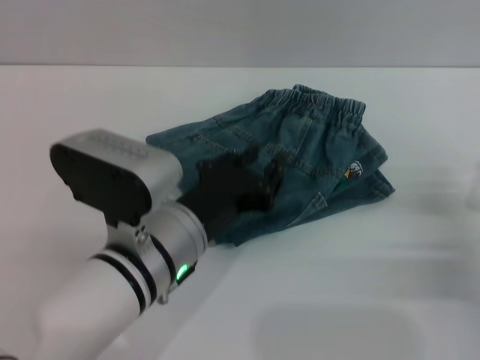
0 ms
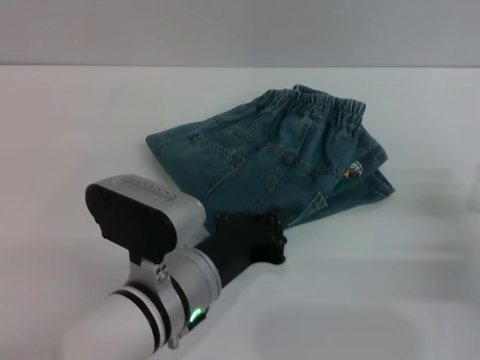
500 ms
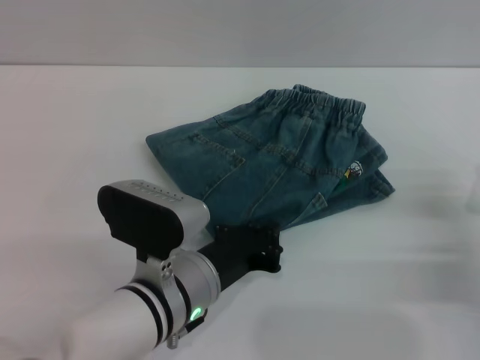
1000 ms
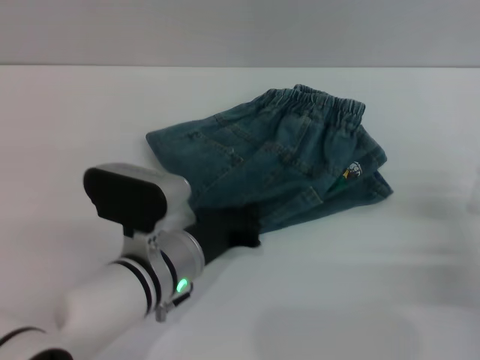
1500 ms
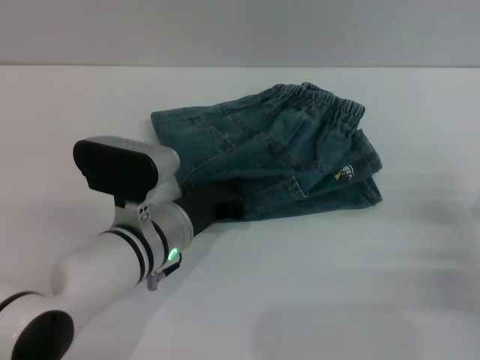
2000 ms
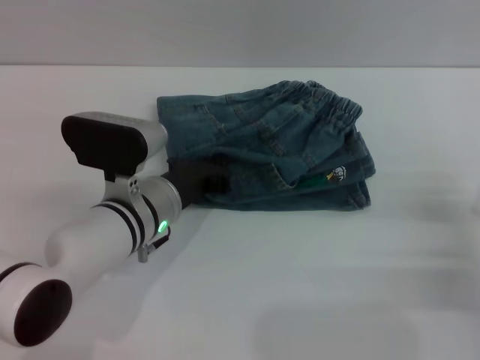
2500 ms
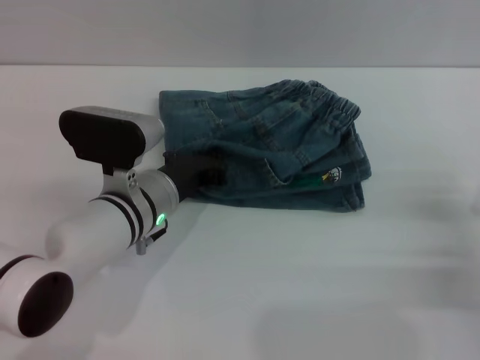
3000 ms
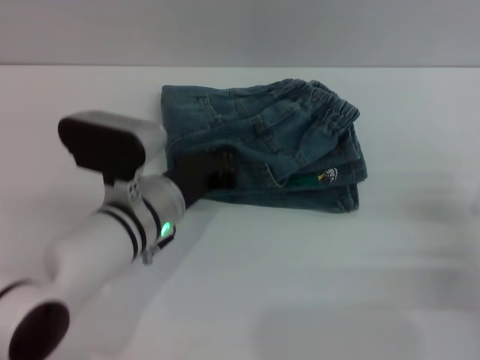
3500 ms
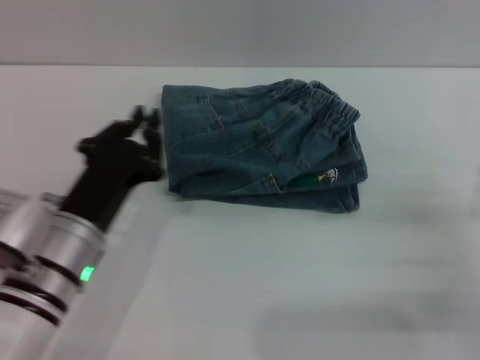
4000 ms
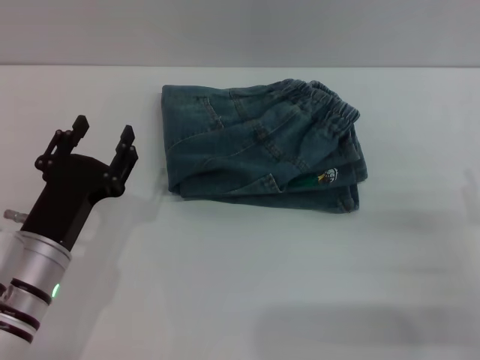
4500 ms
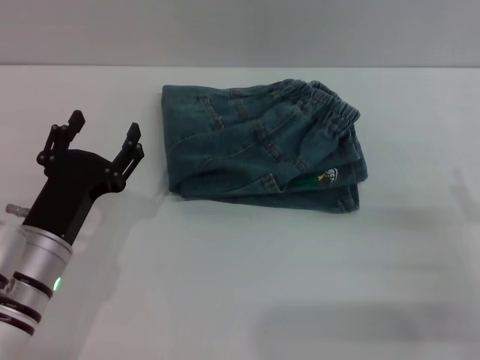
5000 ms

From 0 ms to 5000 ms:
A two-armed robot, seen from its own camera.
Step, from 0 ms to 3000 ms: Place the folded trousers onto the center area with the left grippers.
From 0 ms to 2500 ms: The left gripper moves forward, some 10 cm, and closes.
From 2500 ms to 5000 ms: The right gripper opens its fingers; the left gripper shifts some 10 cm to the left and backward, and opens its fingers.

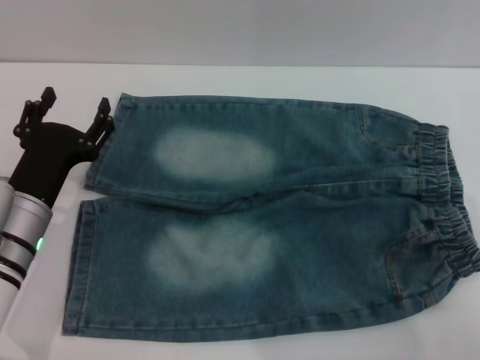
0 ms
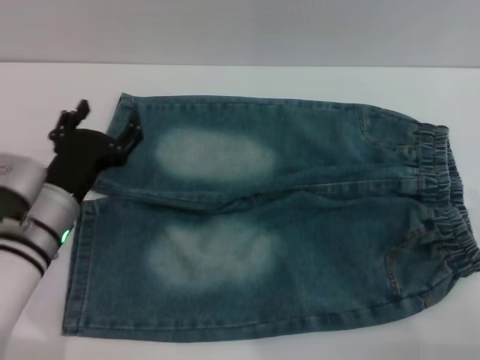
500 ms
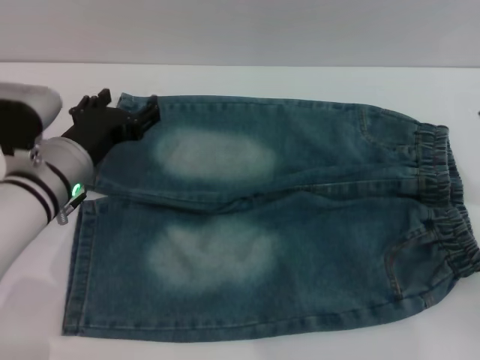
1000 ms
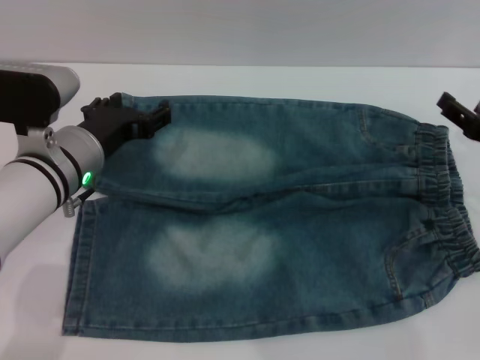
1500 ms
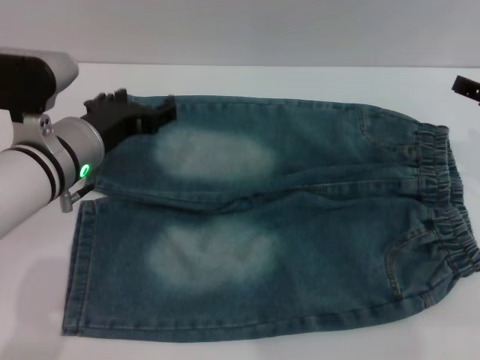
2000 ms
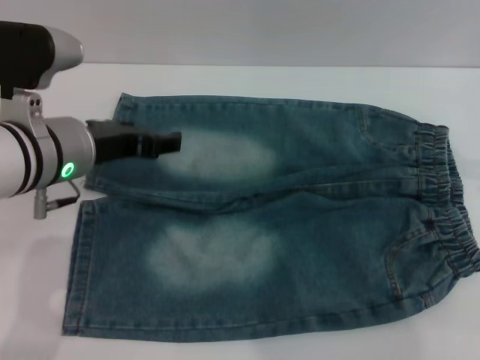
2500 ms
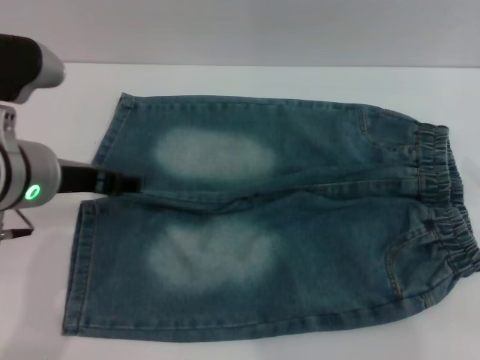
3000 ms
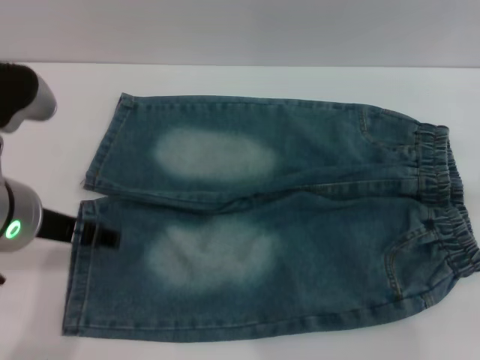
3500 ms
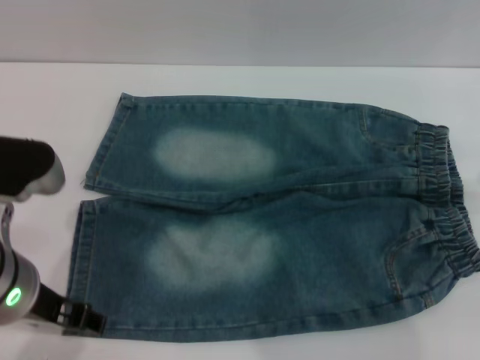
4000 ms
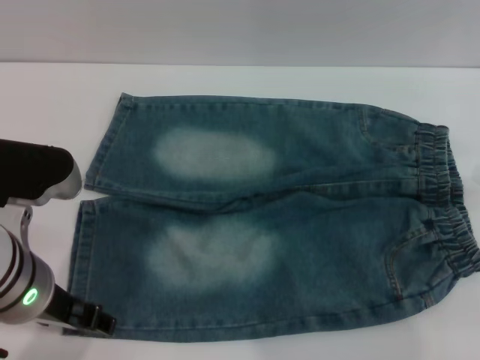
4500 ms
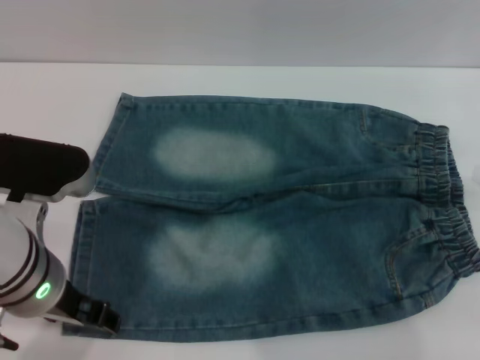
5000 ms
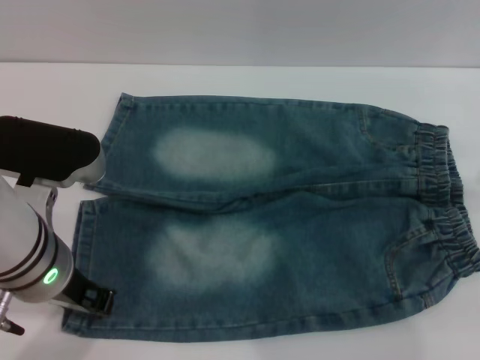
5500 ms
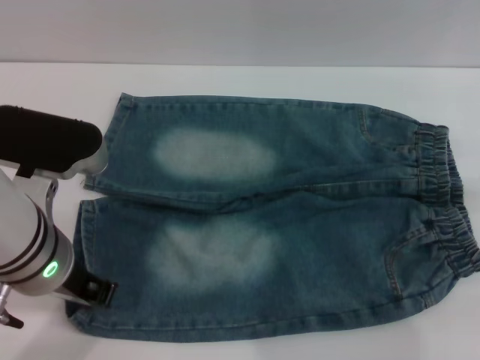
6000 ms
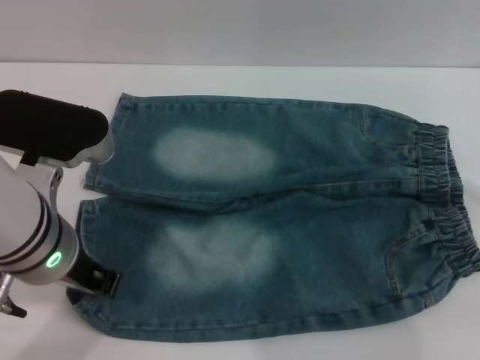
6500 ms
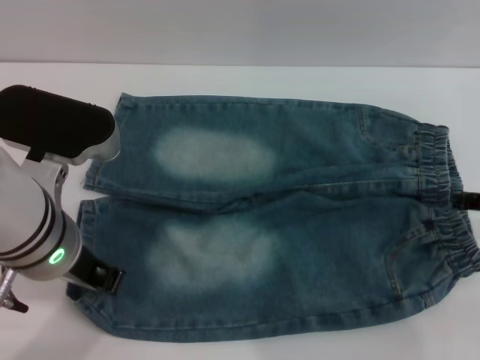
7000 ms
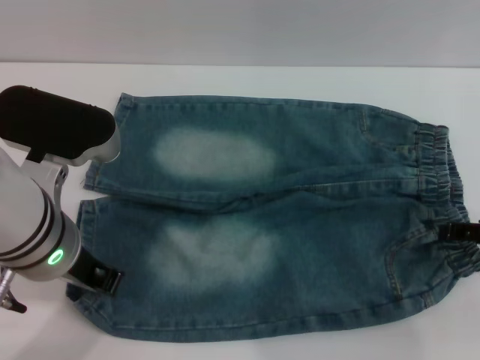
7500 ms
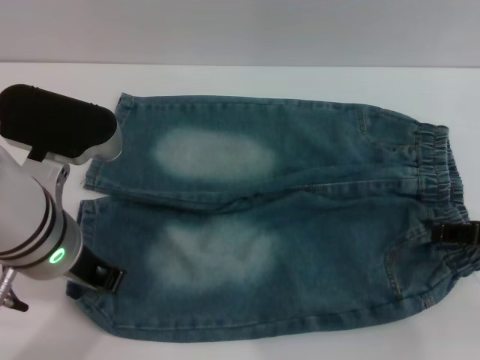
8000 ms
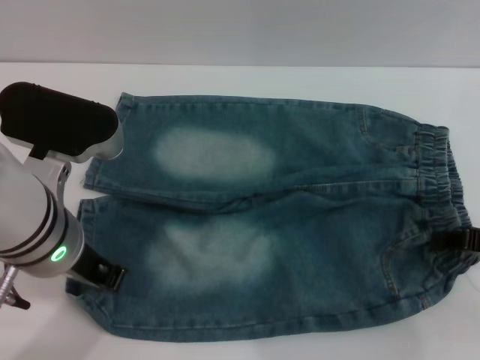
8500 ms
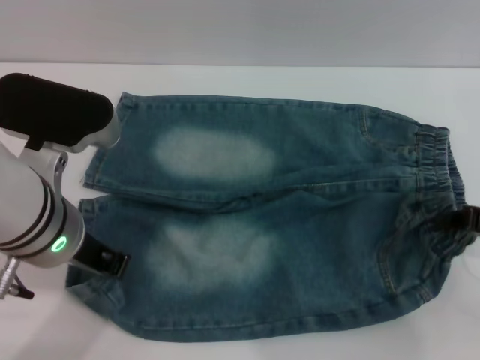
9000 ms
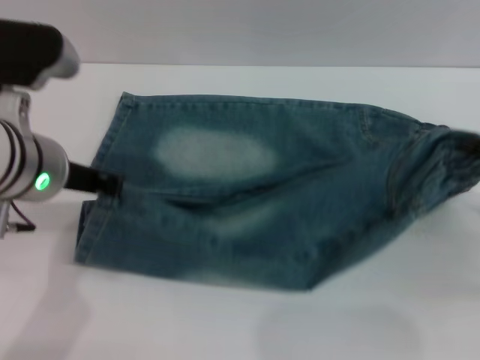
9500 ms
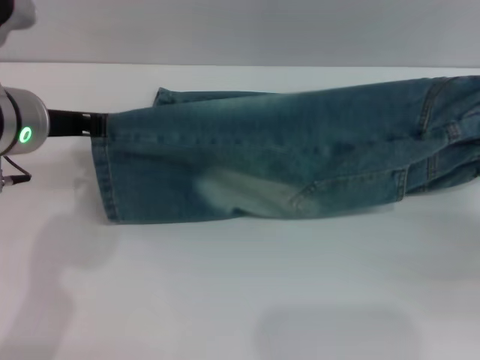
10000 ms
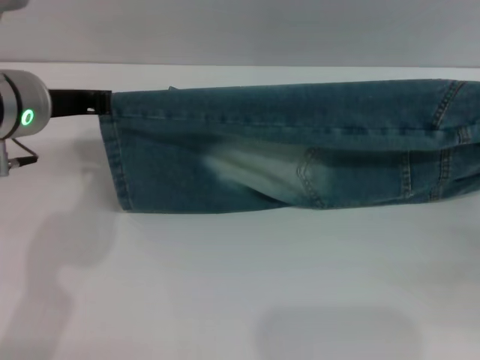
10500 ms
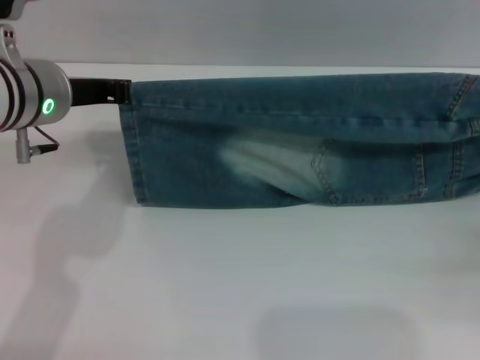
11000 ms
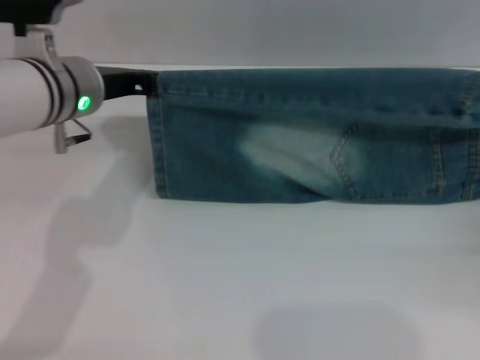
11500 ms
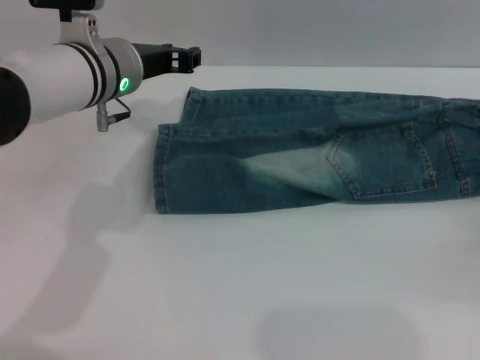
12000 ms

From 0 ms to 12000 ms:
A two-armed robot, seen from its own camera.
From 0 ms to 2000 ms: The left gripper shifts some 10 cm upward and forward.
From 2000 ms to 4000 ms: The left gripper moves backward, some 10 cm.
From 4000 ms to 6000 ms: The left gripper closes its fingers.
From 6000 ms to 8000 ms: The right gripper goes approximately 5 cm downward.
From 8000 ms to 10000 ms: The right gripper is displaced to the right by approximately 5 cm, and closes. The left gripper travels forward by approximately 5 cm.
From 10000 ms to 12000 ms: The left gripper heads forward and to the right, covering approximately 10 cm.

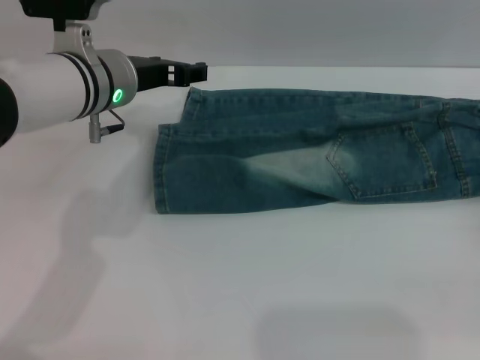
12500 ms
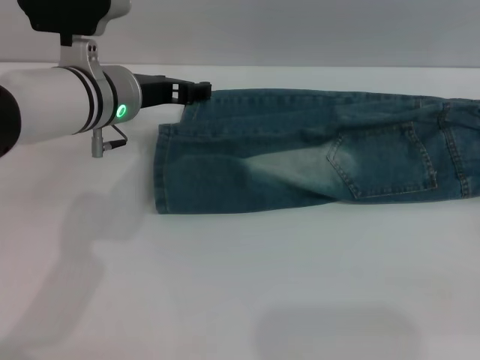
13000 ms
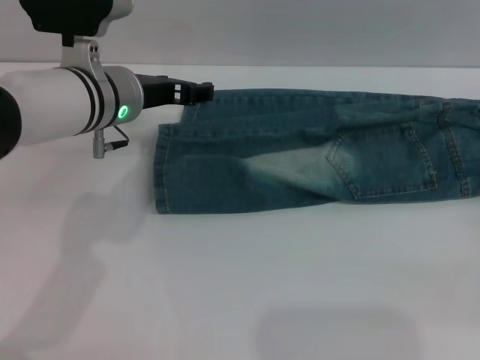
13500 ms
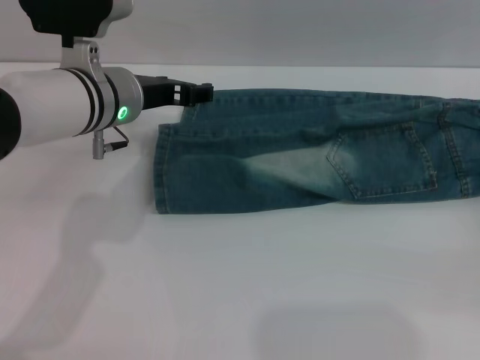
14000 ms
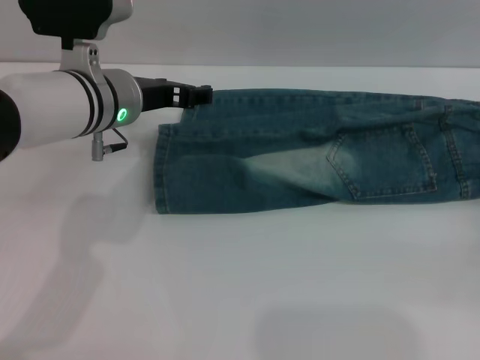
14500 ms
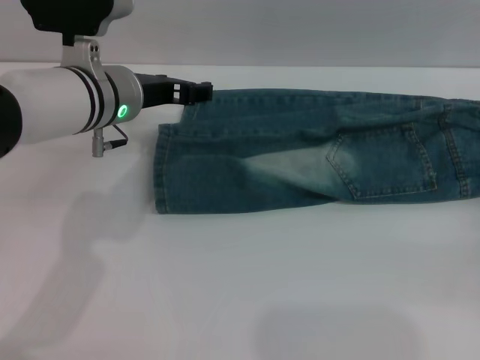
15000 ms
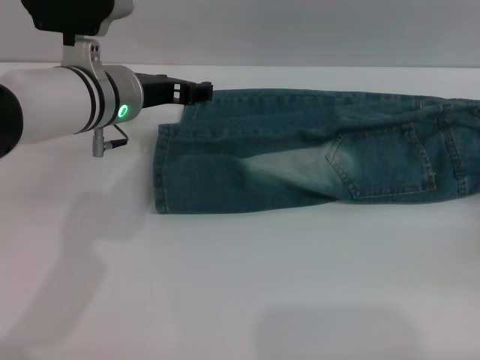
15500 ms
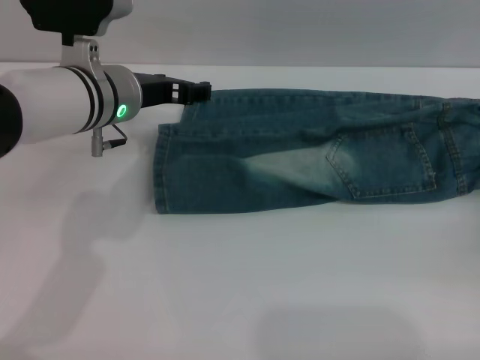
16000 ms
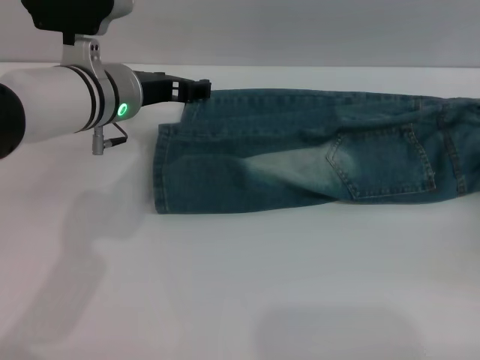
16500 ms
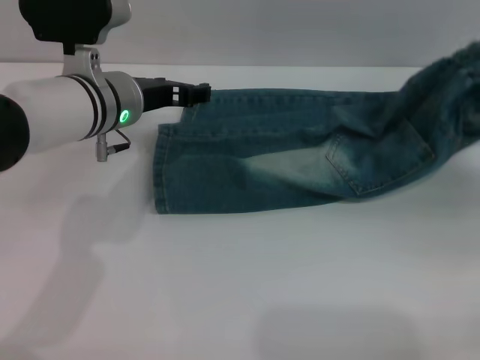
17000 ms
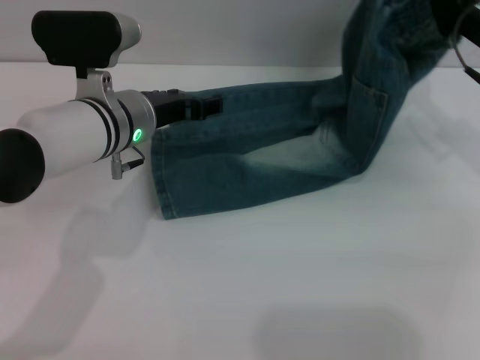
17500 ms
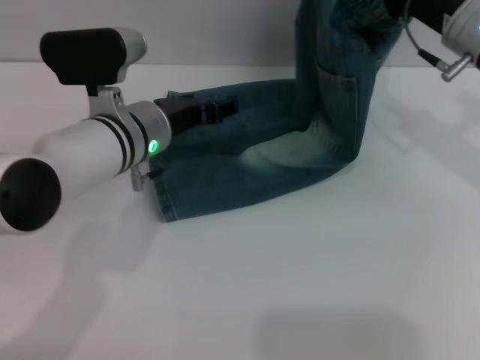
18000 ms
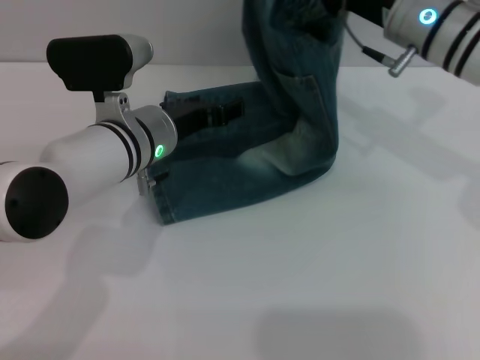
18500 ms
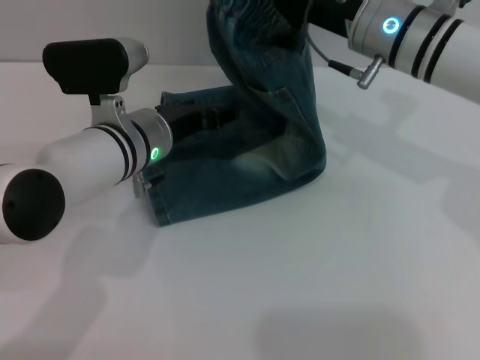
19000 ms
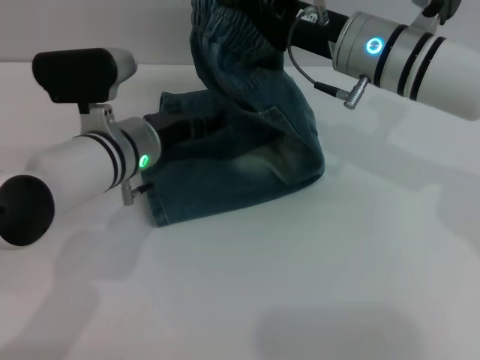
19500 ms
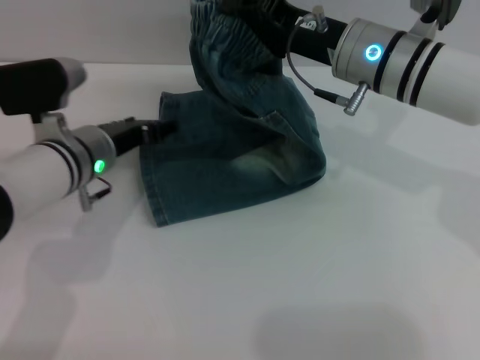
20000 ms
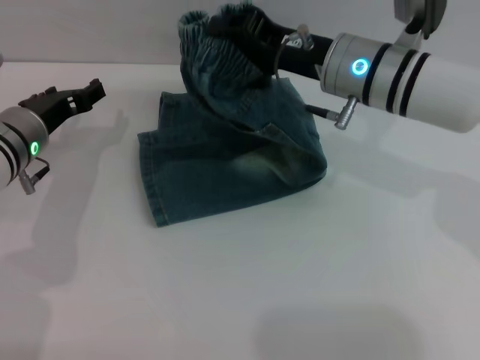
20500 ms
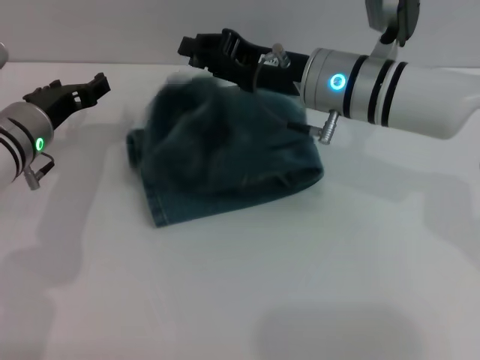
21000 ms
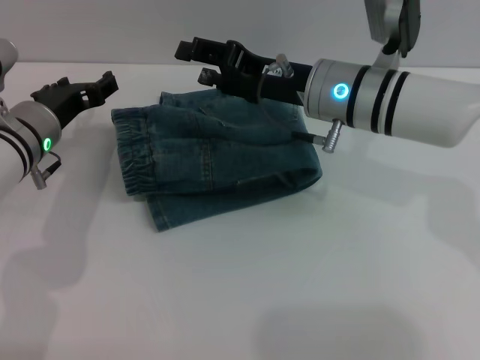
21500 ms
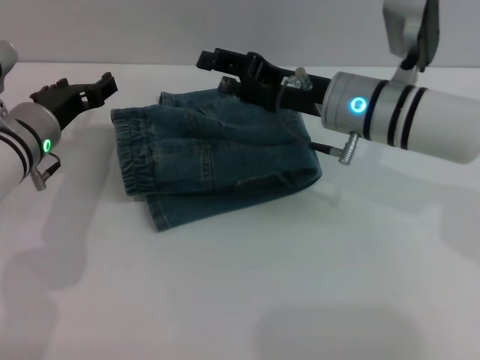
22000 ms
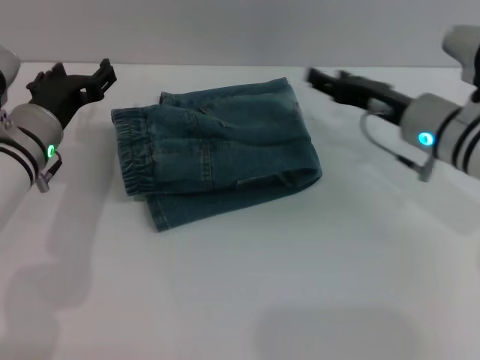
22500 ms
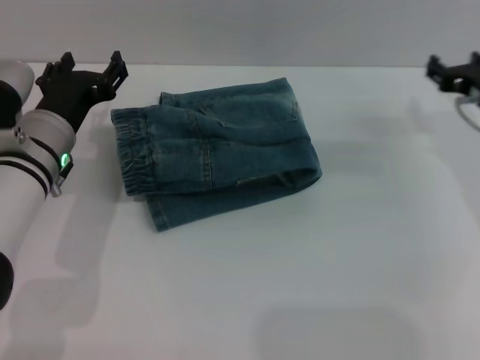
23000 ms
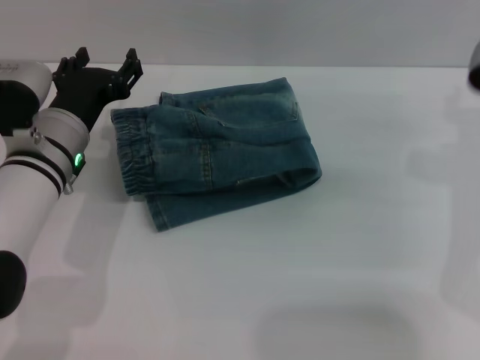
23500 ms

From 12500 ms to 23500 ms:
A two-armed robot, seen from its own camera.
Step, from 12500 ms to 21500 ms: Fold the pants from right to left with the right gripper.
From 12500 ms to 14500 ms: The grippers make only small movements.
From 14500 ms to 16000 ms: The grippers stay close to where they were, moving slightly.
From 16000 ms to 18000 ms: The right gripper moves to the left, upward and forward, approximately 25 cm, and closes up; the left gripper changes place by approximately 5 cm.
From 18000 ms to 20000 ms: The left gripper heads to the left, covering some 5 cm. Meanwhile the right gripper travels to the left by roughly 10 cm.
From 20000 ms to 21500 ms: The right gripper opens up.
From 21500 ms to 23500 ms: The right gripper shifts some 15 cm to the right.
